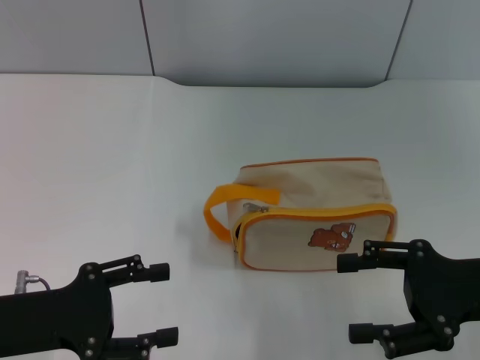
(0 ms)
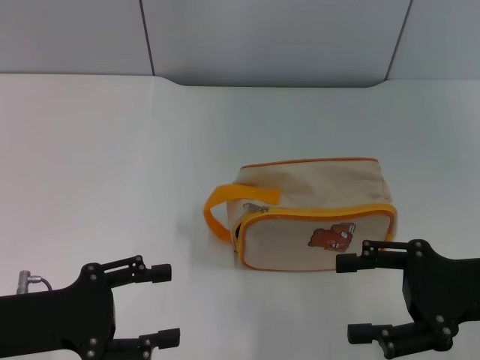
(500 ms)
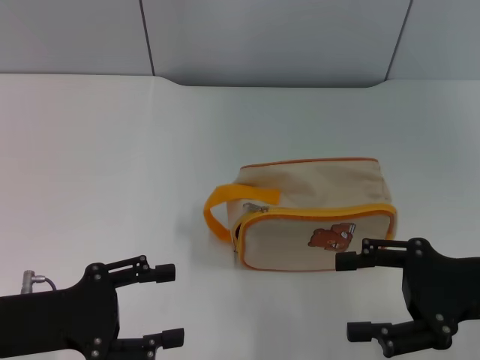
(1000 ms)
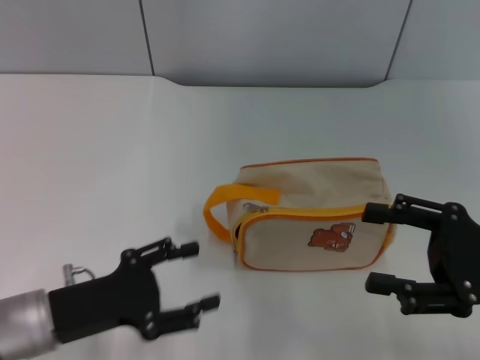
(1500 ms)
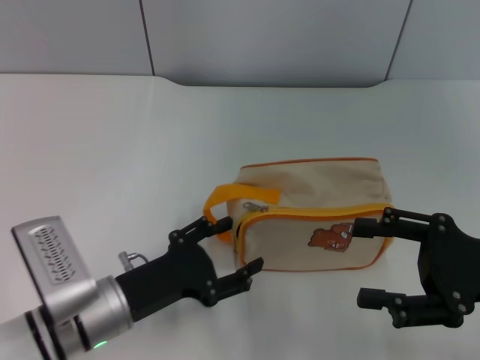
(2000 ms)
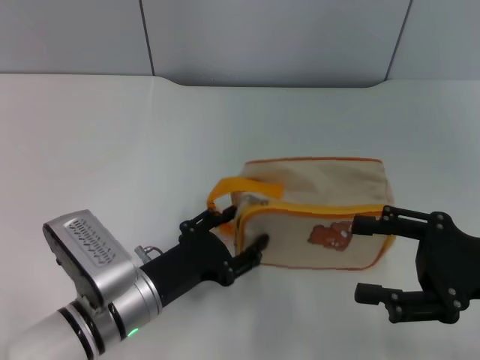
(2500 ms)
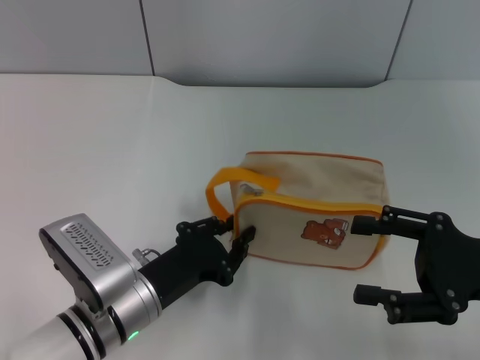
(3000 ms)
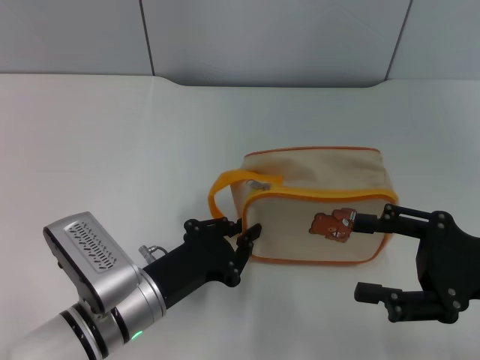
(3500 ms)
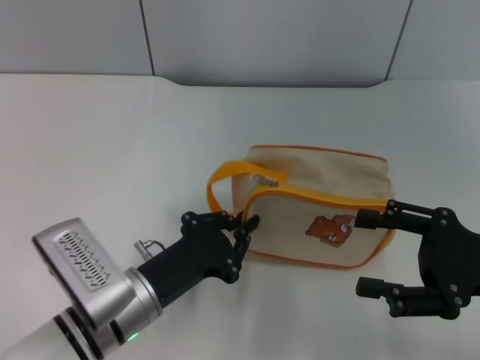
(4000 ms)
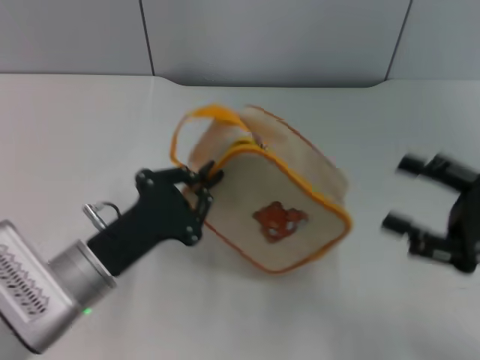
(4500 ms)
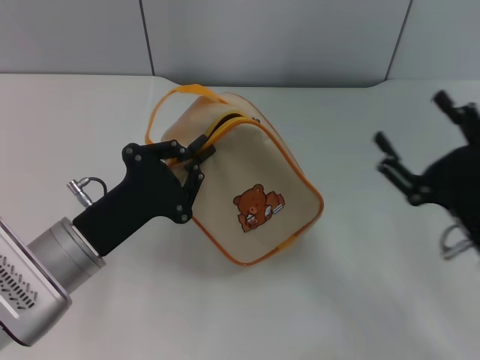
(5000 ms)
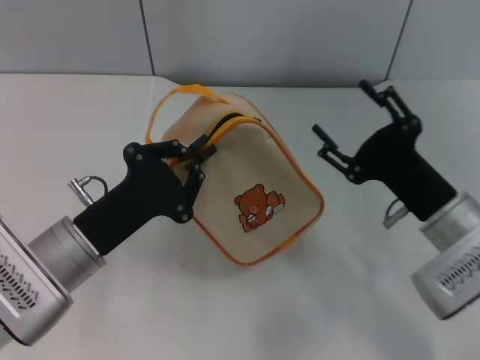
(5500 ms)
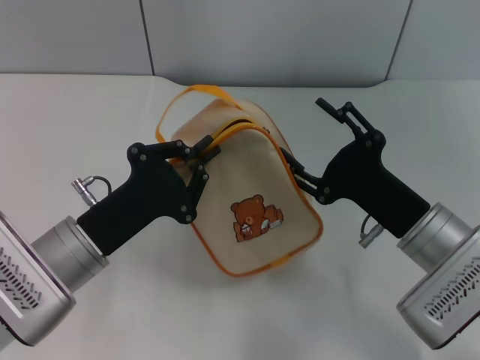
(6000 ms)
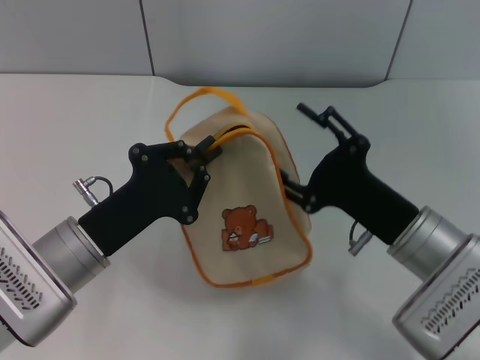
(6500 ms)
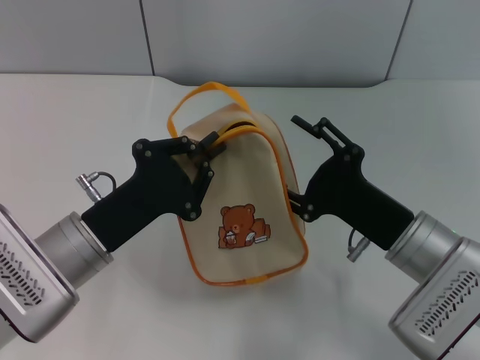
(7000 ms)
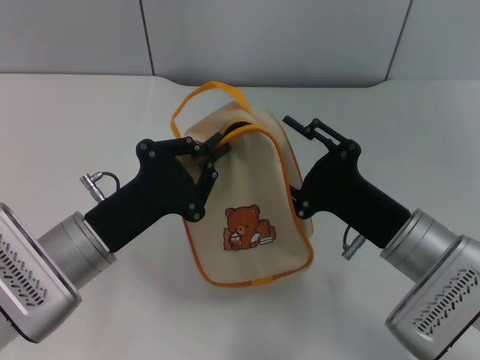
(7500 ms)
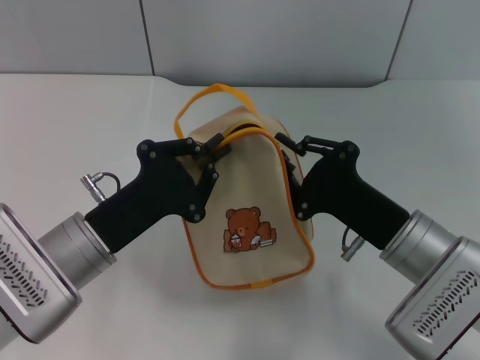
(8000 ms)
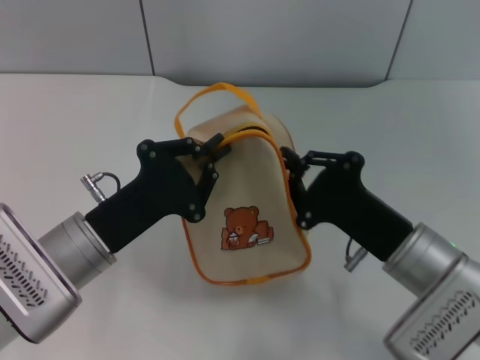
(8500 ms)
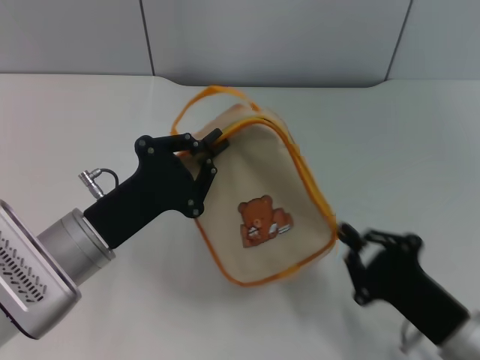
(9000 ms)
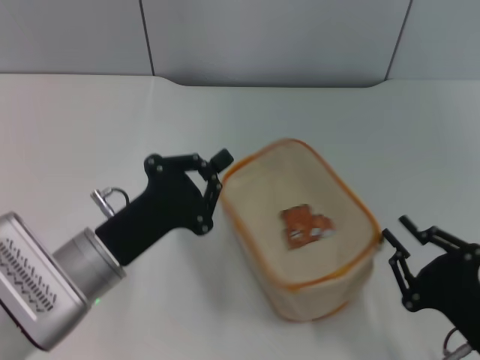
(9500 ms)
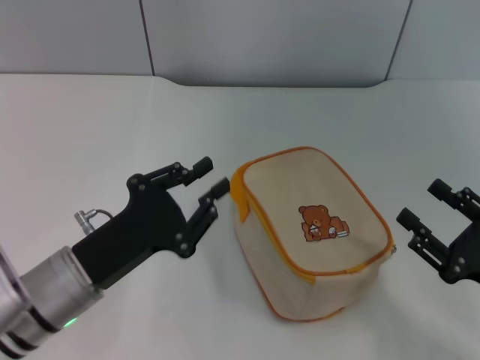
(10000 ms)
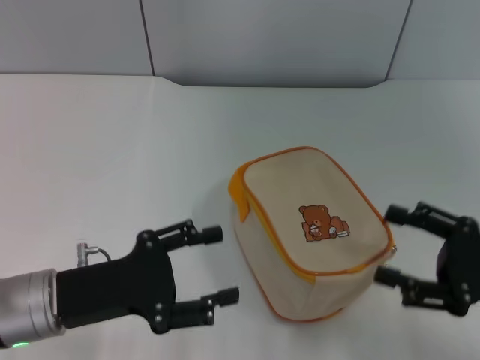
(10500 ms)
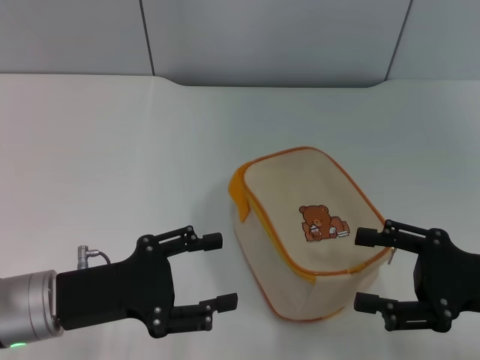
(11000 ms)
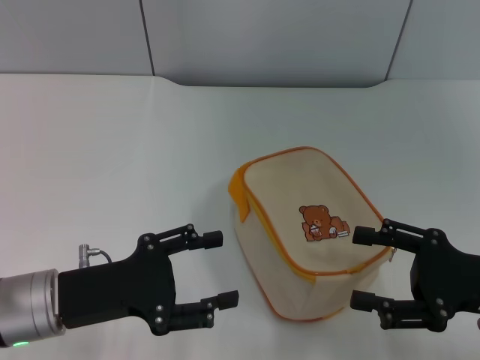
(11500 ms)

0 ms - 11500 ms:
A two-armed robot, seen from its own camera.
Step, 0 ms - 4500 ms: Pick up the bag with left gripper.
Step, 5000 ms - 9500 ms: Unzip the zipper of bag with right gripper.
0 ms - 2000 ms: The left gripper is displaced to the right and downward by about 10 cm.
2000 ms - 4000 ms: The left gripper closes its fingers.
4000 ms - 6000 ms: The right gripper goes approximately 10 cm to the left and downward, while the left gripper ends up some 5 cm from where it was.
6000 ms - 7500 ms: There are only small adjustments of the grippers.
7500 ms - 9500 ms: The right gripper goes approximately 15 cm backward and to the right, and closes its fingers.
9500 ms - 11500 ms: The right gripper shifts some 10 cm forward and upward, and opens; the left gripper moves to the left, about 5 cm, and opens.

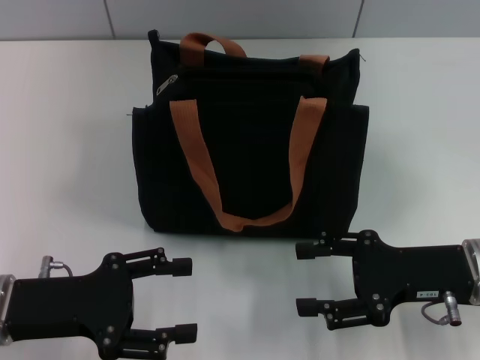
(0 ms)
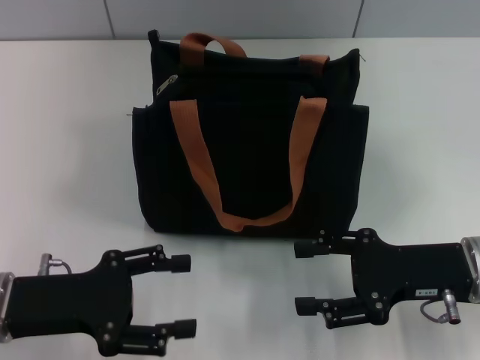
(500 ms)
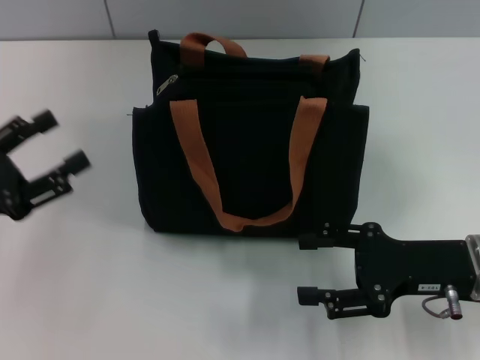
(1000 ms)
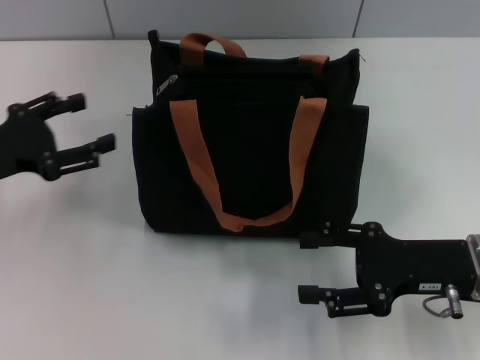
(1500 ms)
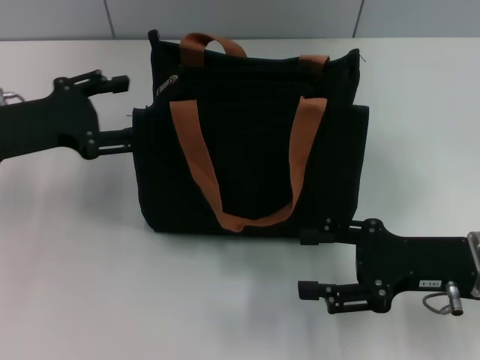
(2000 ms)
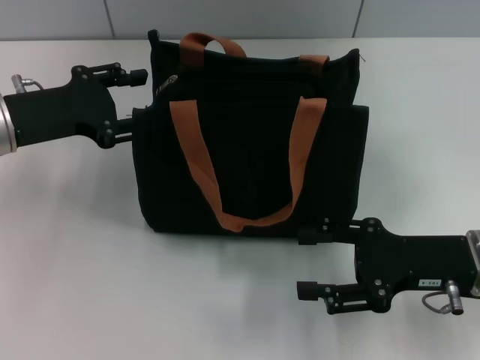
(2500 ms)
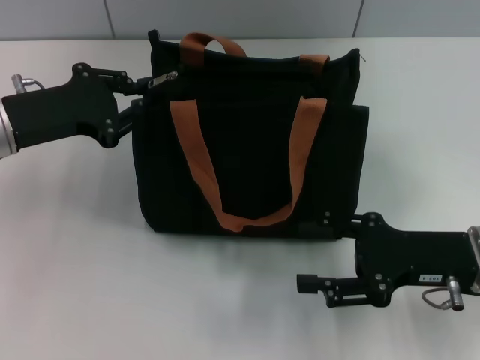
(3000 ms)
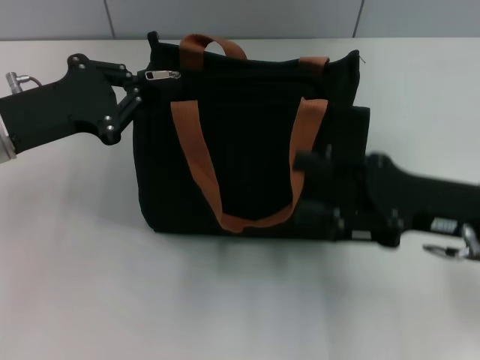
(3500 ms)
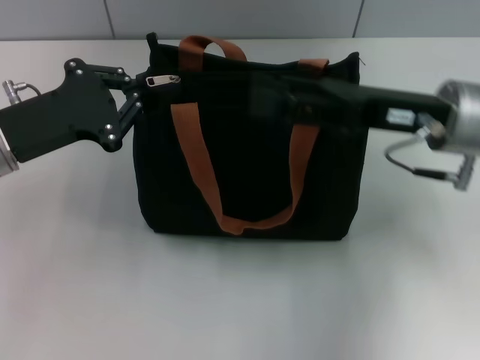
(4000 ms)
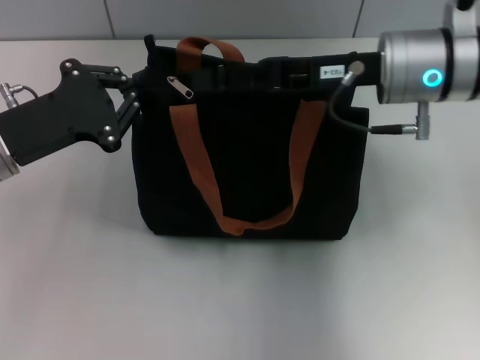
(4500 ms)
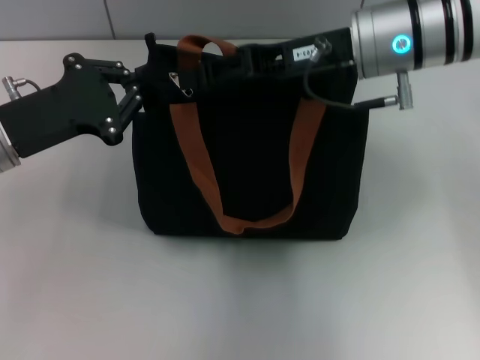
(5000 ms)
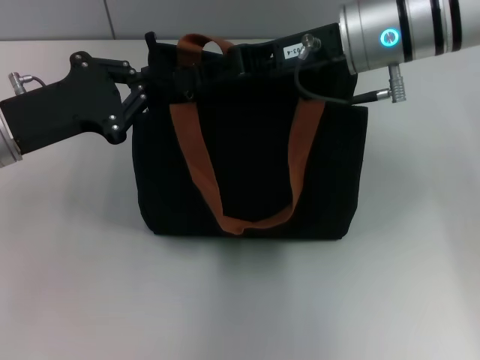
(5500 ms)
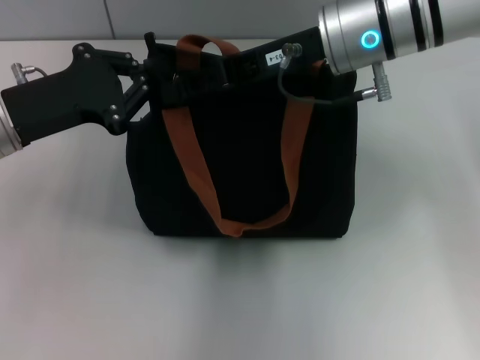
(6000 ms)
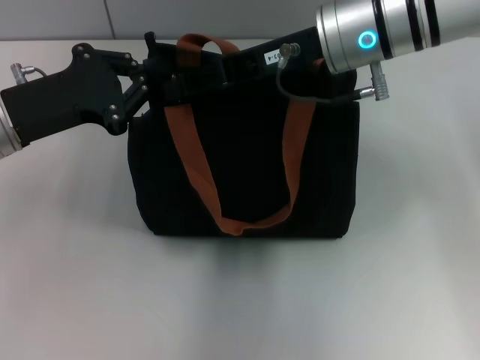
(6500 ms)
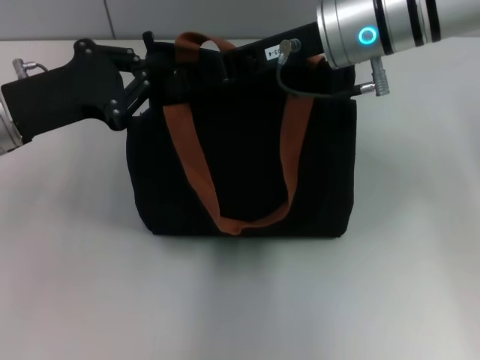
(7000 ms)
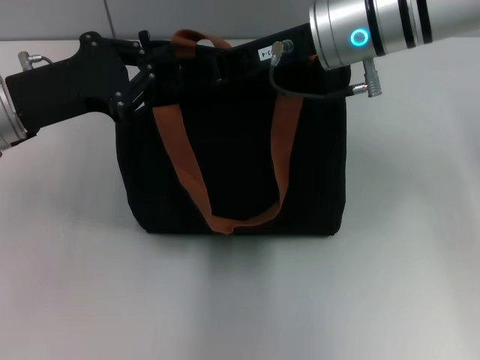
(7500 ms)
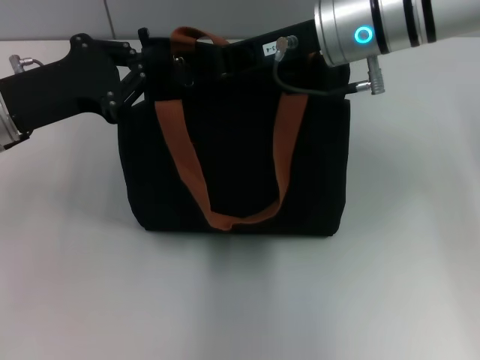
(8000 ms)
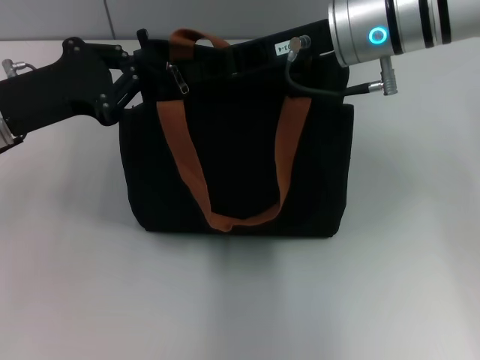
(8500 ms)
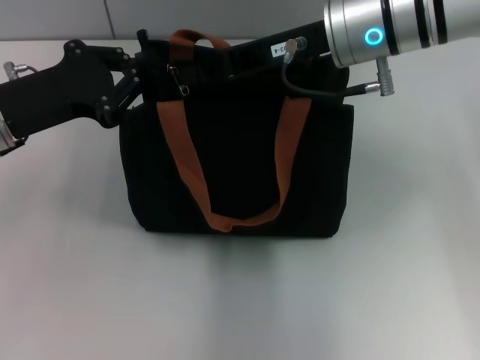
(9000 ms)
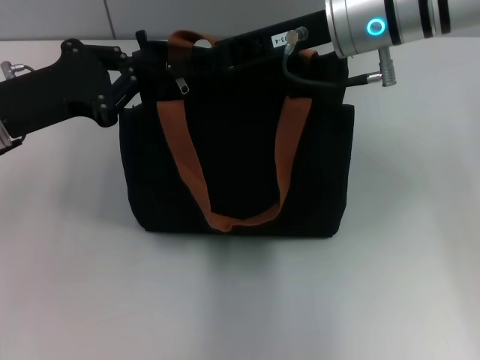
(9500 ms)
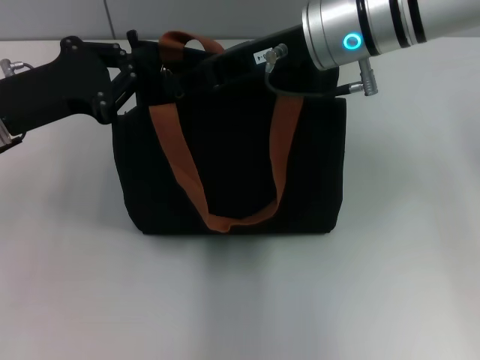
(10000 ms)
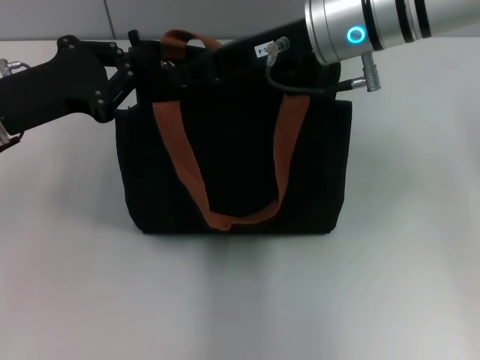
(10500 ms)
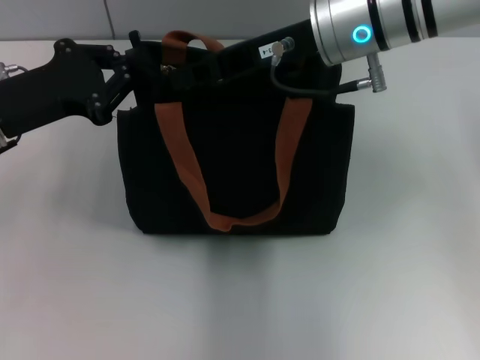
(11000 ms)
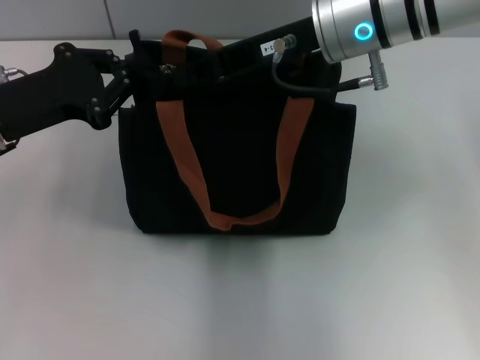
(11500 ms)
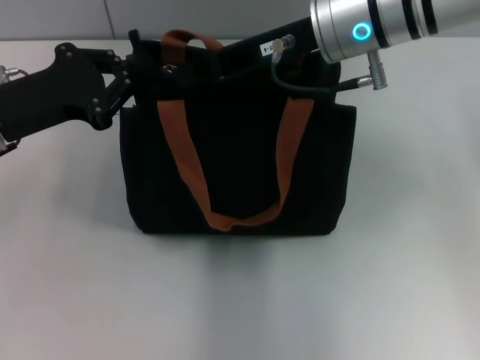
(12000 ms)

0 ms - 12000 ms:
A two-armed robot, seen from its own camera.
0 ms - 2000 ms: The left gripper heads forward and upward, covering some 15 cm.
2000 ms - 4000 ms: The left gripper closes its fingers. The right gripper heads upward and forward, covering some 10 cm.
4000 ms - 6000 ms: The right gripper heads to the left, forward and upward, covering some 15 cm, and closes up.
6000 ms - 10000 ms: The grippers move only a little.
10000 ms - 12000 ms: The two grippers keep their place.

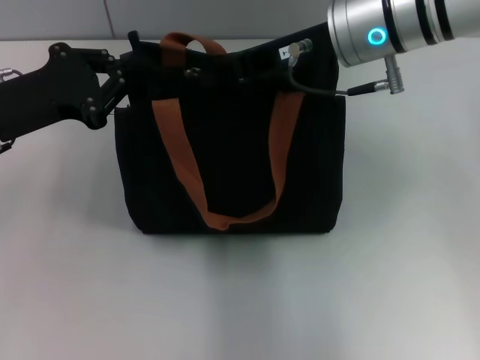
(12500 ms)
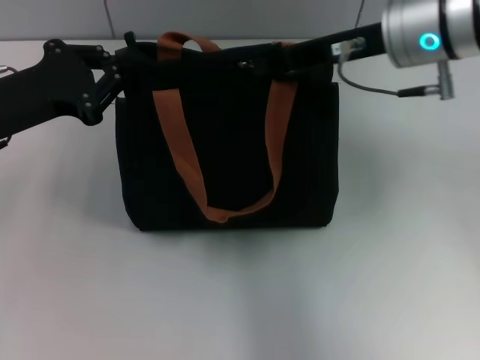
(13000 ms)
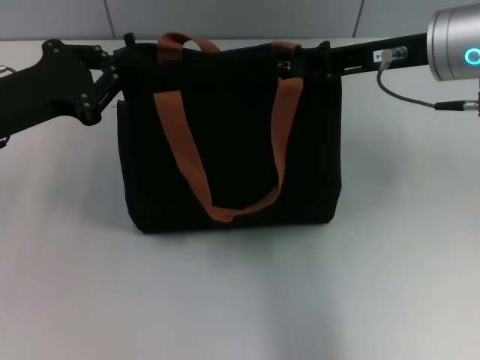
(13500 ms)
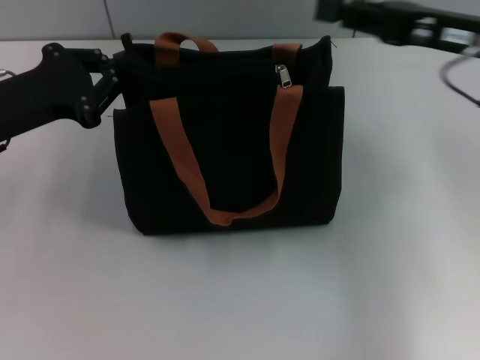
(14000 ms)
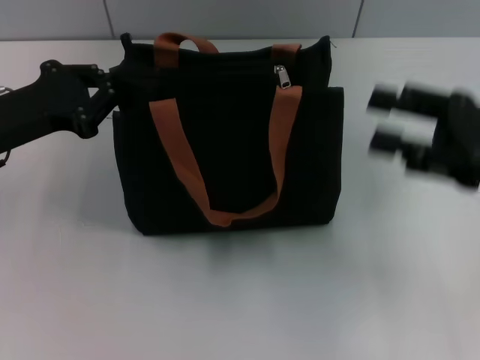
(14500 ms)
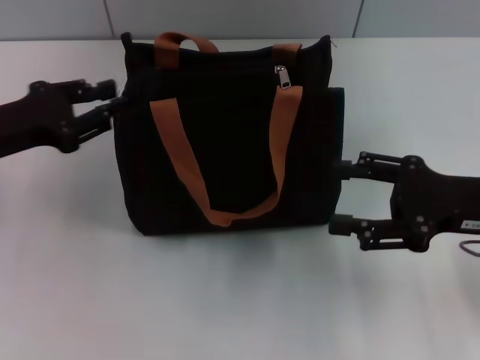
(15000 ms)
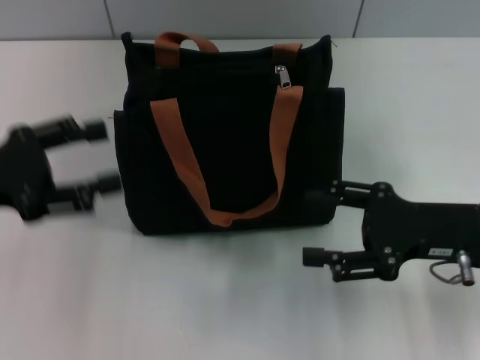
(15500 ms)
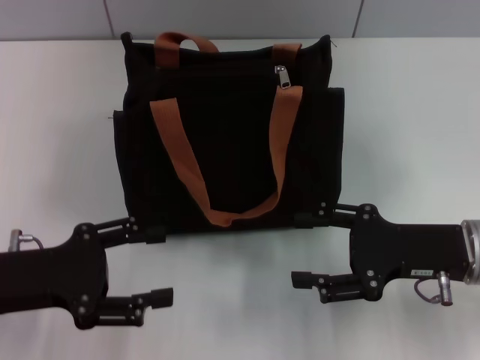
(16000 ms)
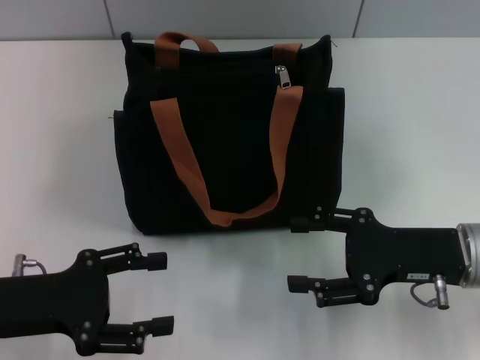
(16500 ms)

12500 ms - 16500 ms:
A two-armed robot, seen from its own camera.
Step, 14000 ms - 15000 ms: Grab the zipper with your left hand.
12500 ms - 14500 ms: The right gripper is displaced to the right, backward and downward by about 20 cm, and opens its fingers.
14500 ms - 16500 ms: The left gripper heads backward and downward, covering approximately 10 cm, and opens, while the right gripper goes approximately 10 cm downward and to the left.
